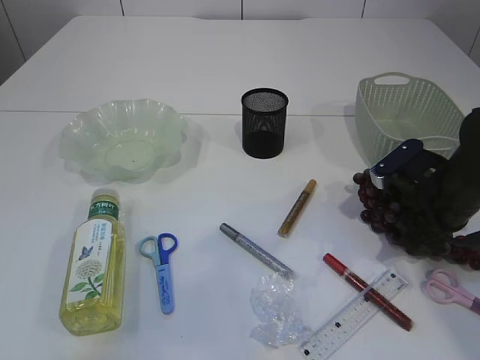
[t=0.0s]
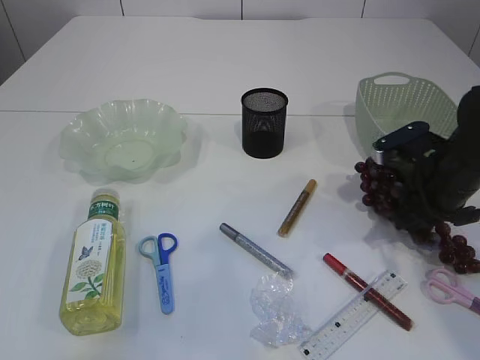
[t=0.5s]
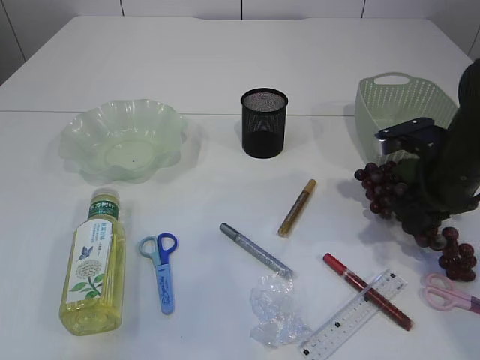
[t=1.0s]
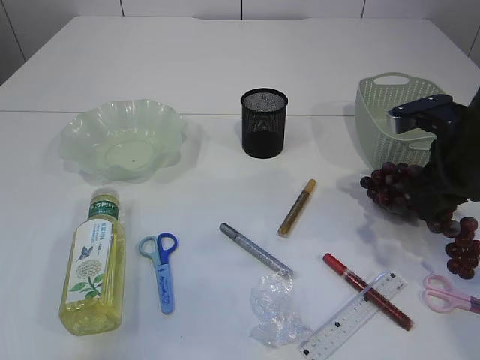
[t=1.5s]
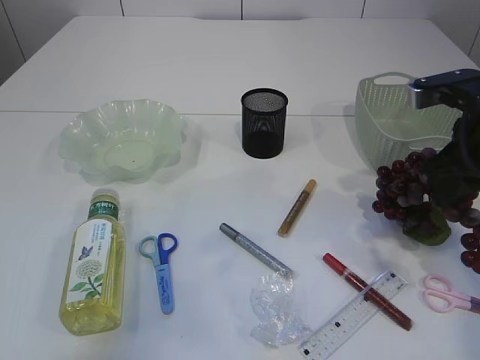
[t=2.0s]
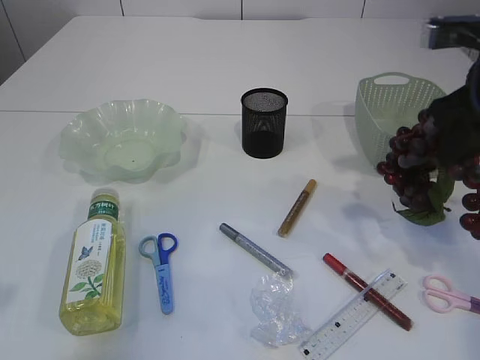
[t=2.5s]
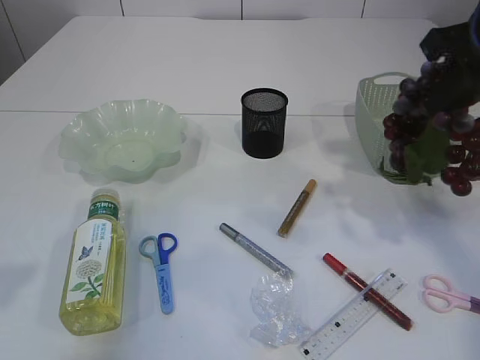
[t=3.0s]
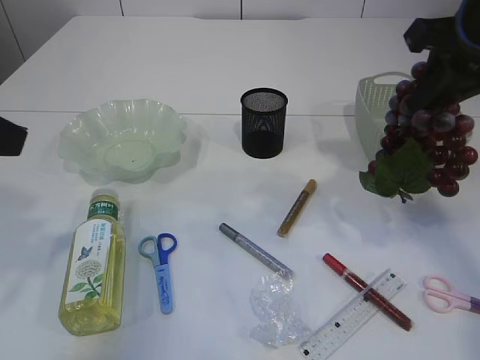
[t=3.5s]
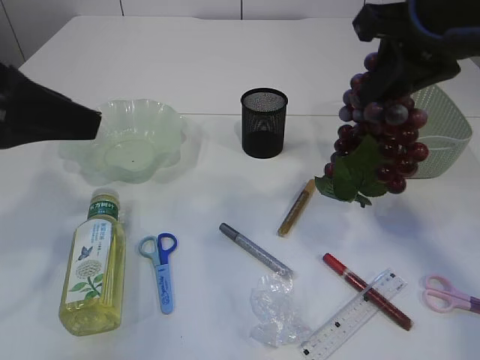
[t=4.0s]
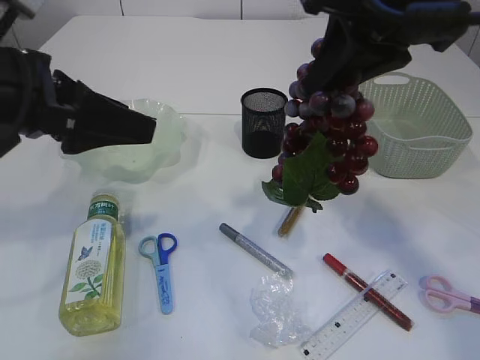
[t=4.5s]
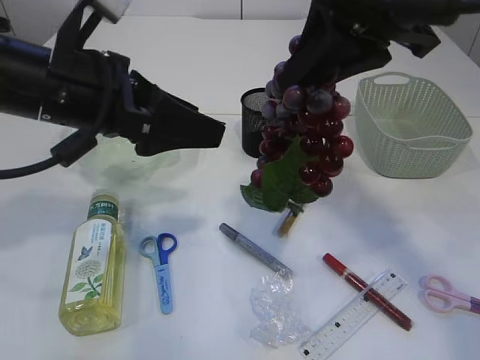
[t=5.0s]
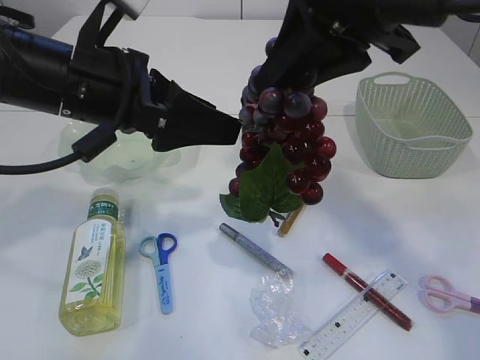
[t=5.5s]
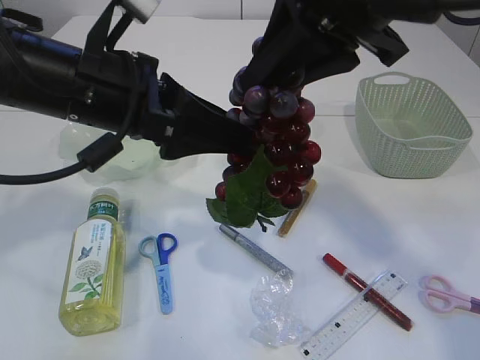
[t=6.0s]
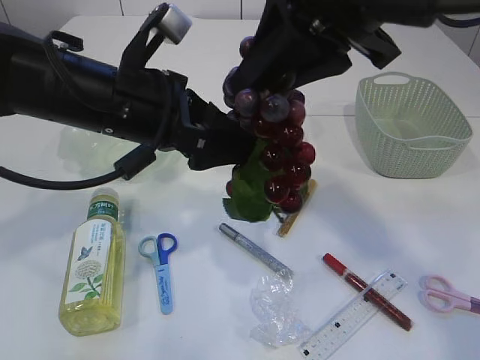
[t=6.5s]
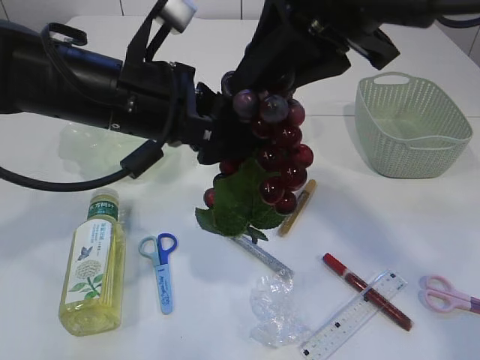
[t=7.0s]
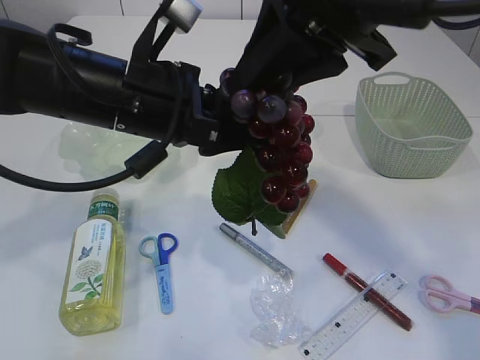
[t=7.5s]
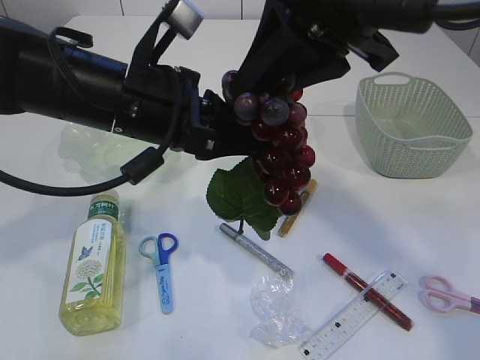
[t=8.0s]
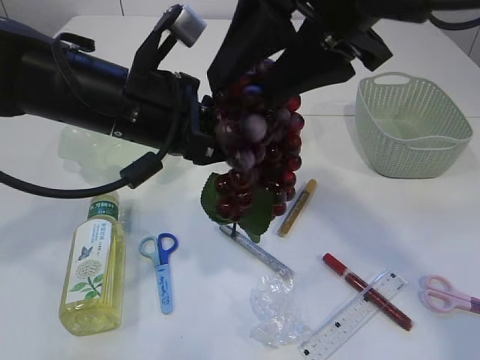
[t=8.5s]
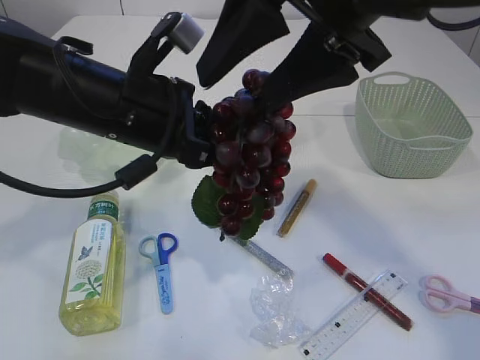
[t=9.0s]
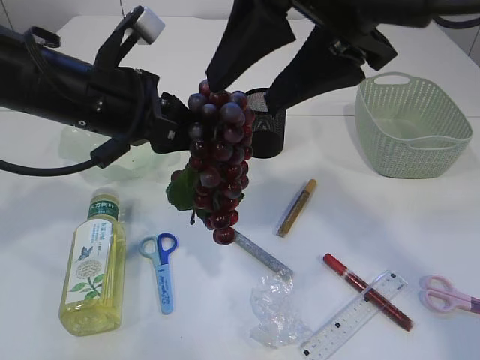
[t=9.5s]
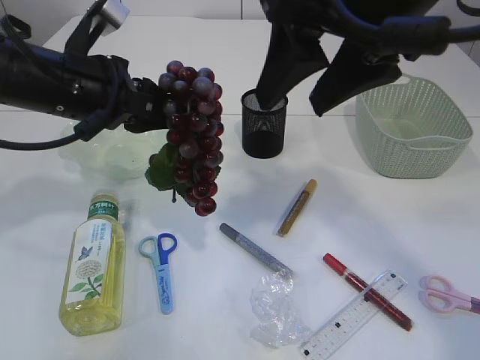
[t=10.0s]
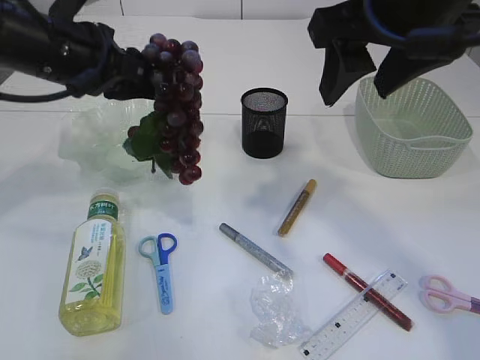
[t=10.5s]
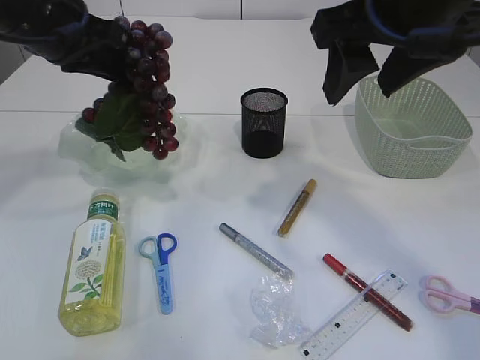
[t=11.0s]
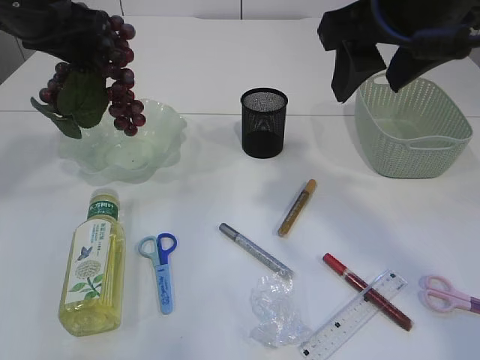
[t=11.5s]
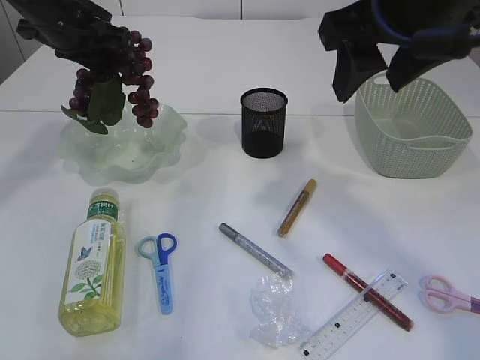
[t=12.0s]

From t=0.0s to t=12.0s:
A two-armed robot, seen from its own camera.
Step, from t=0.0s to t=2.5s: Pick up the grapes.
Step, from t=3.0s to t=9.5s: Hand over the grapes.
From t=0.0s to t=2.0s: The right gripper moves upward, roughly 10 cm, and closes up.
From t=2.0s to t=4.0s: The right gripper heads upward and to the left, covering approximately 15 cm. The left gripper travels forward and to the right by some 10 cm.
From t=4.0s to t=6.0s: The left gripper goes about 10 cm to the right and forward. Meanwhile the right gripper is displaced to the left by some 10 cm.
From t=6.0s to t=8.0s: The left gripper closes up.
From t=8.0s to t=10.0s: The right gripper opens its fingers. Meanwhile the left gripper goes roughly 5 cm to the left.
From t=10.0s to t=12.0s: The left gripper is displaced forward and to the left by approximately 15 cm.

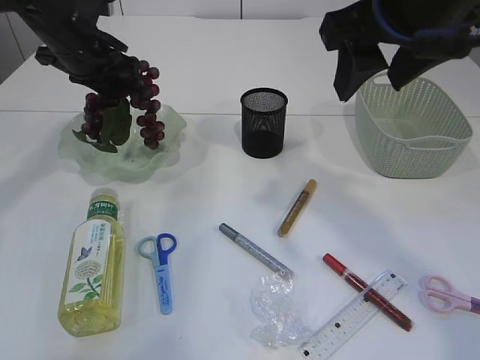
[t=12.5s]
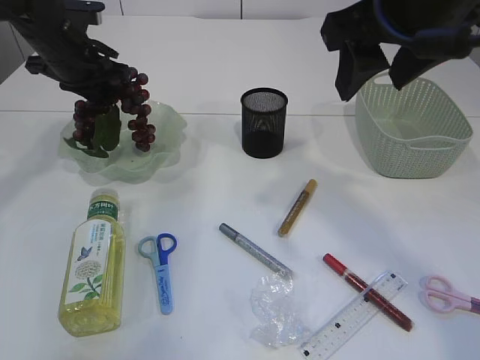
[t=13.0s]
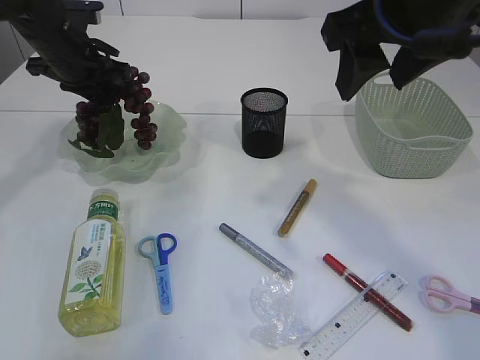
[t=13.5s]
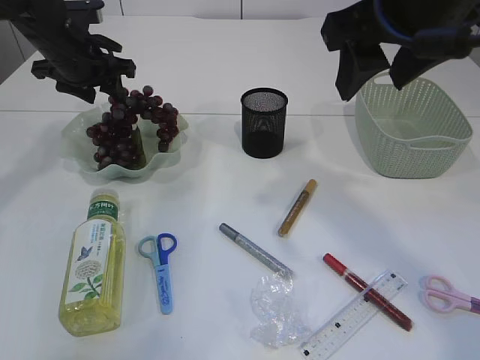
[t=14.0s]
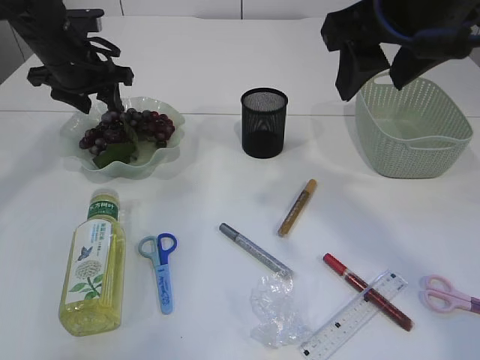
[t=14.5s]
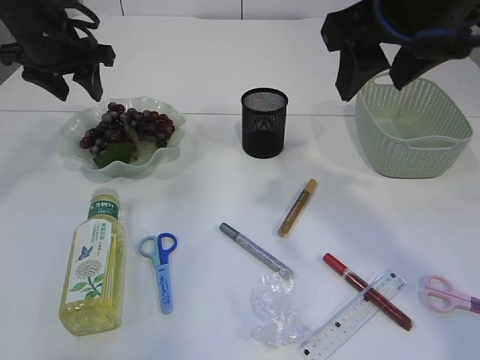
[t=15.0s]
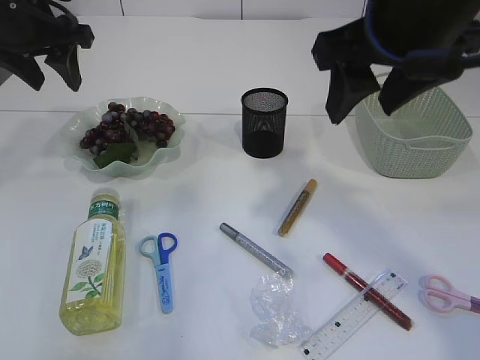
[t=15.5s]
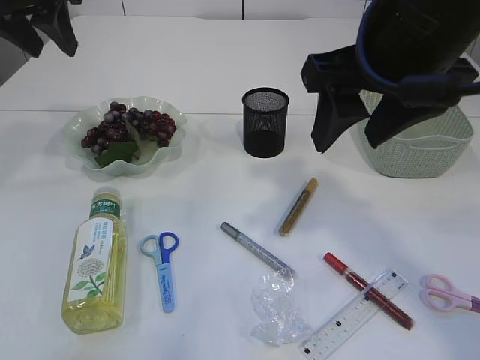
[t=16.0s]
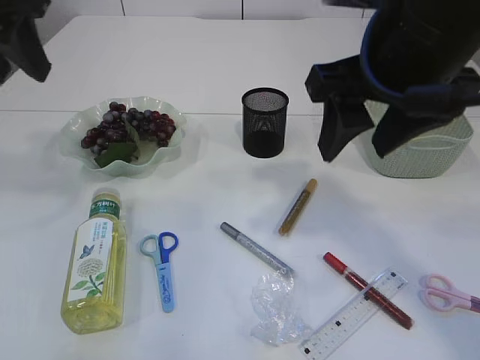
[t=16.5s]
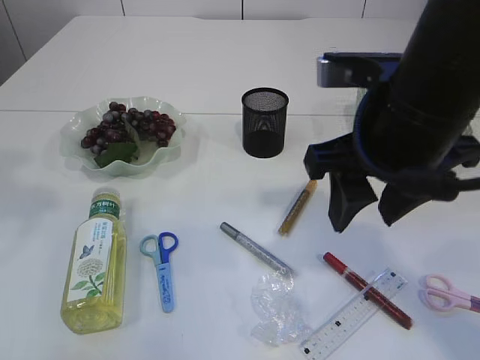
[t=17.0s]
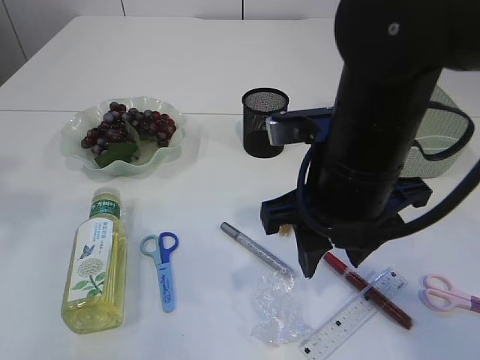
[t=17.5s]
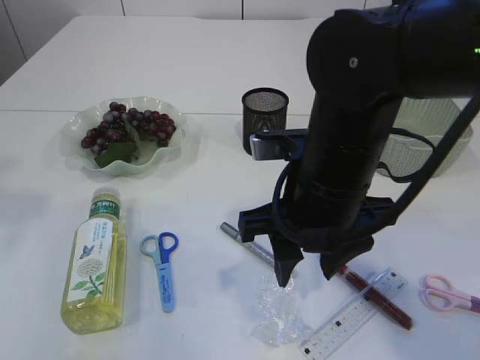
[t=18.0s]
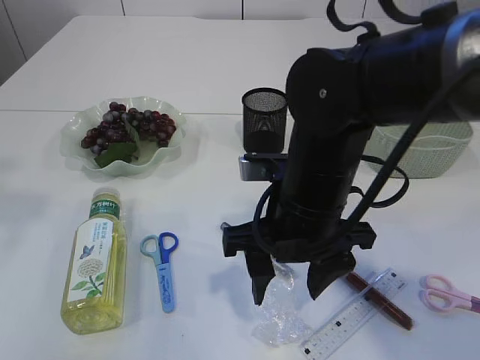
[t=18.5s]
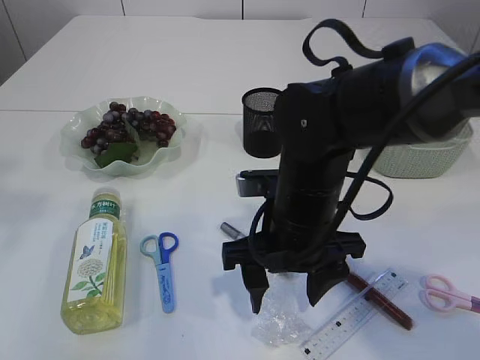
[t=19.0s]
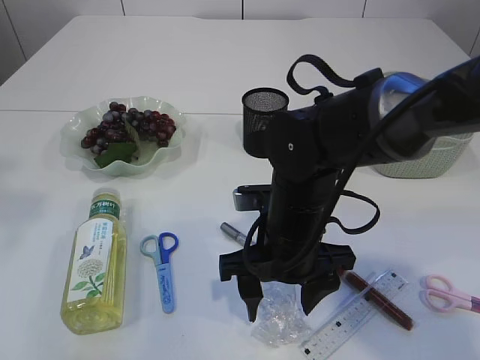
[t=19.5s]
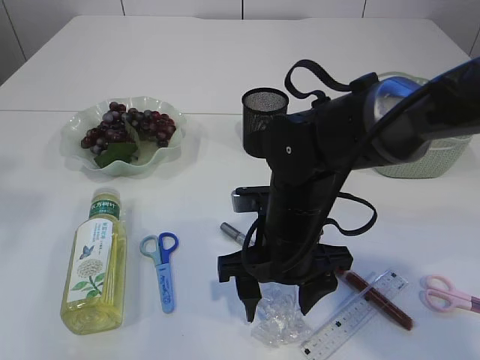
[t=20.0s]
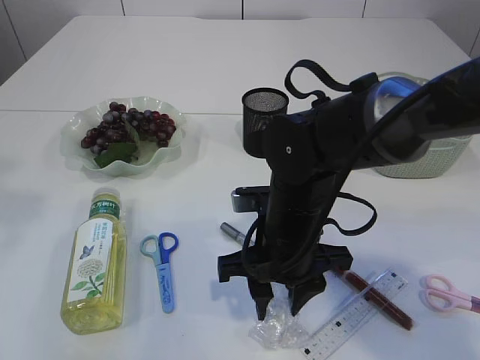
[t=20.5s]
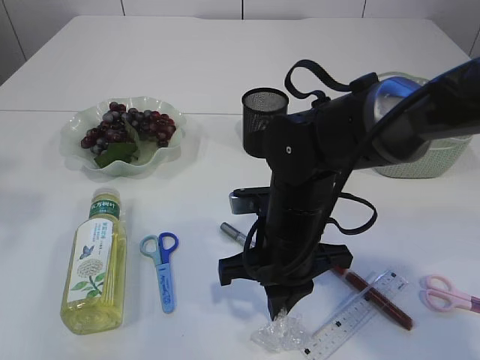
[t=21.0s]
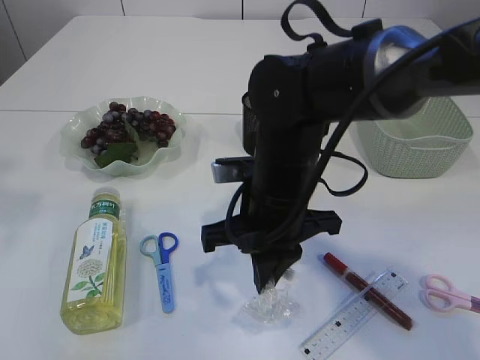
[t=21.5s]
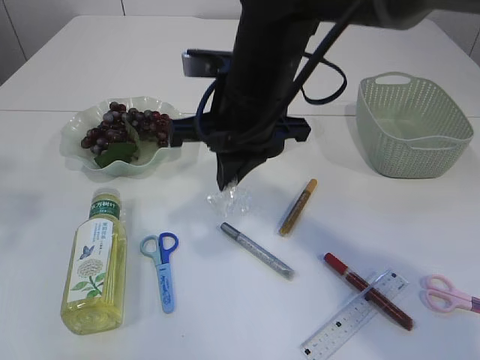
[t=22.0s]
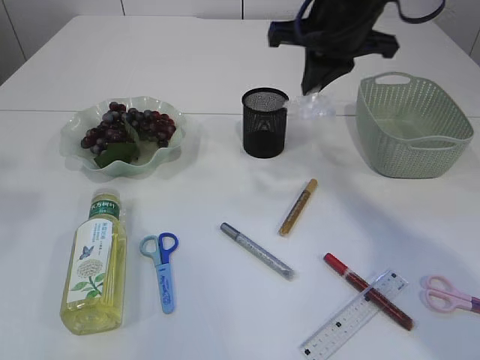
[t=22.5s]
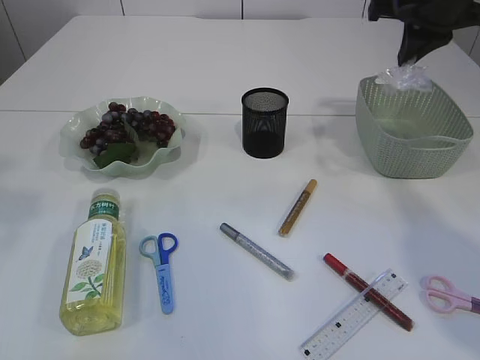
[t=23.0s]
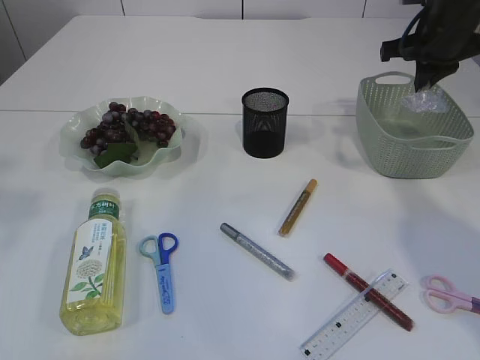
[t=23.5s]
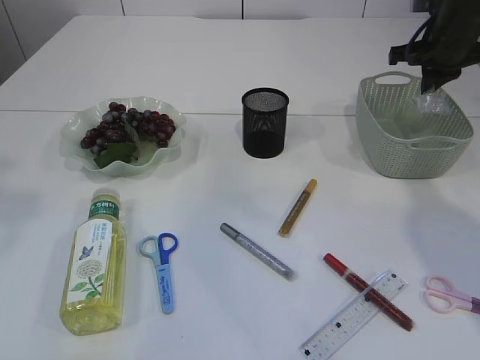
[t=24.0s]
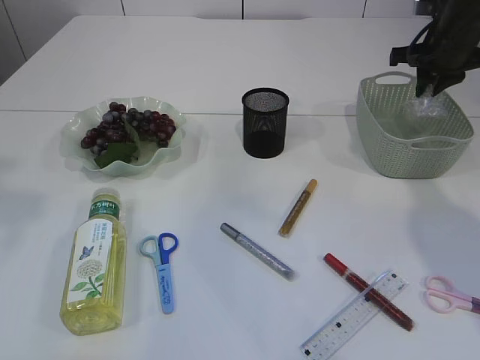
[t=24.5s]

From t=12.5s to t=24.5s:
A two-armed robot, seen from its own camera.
Step, from t=12.5s to t=14.5s: Place the grapes in the plate.
Step, from t=15.0s to t=21.5s: Pick up the plastic.
From t=12.5s to t=14.5s: The left gripper opens up.
From t=14.5s to t=16.5s: The left gripper heads backward and upward, covering some 20 cm.
From t=16.5s to t=18.5s: The right gripper travels downward and to the left by roughly 15 cm. Meanwhile the left gripper shifts approximately 15 cm backward and upward.
From t=18.5s to t=20.5s: The right gripper goes some 5 cm downward.
From t=20.5s to t=22.5s: The right gripper goes about 20 cm upward and forward, and closes up.
From t=22.5s to t=24.5s: The right gripper shifts approximately 20 cm to the right and forward.

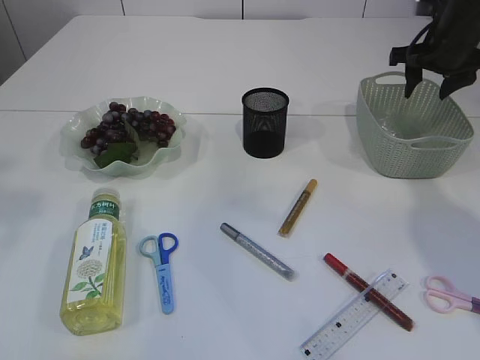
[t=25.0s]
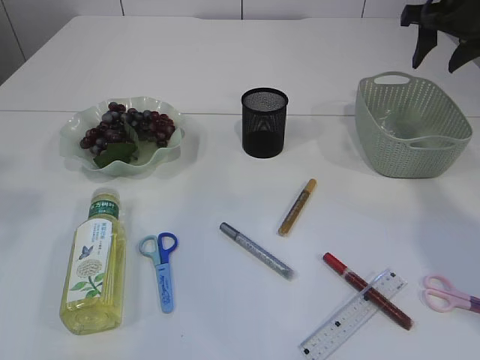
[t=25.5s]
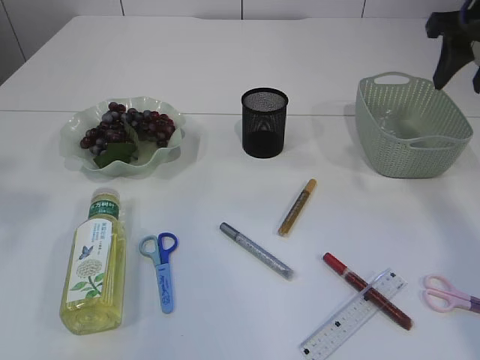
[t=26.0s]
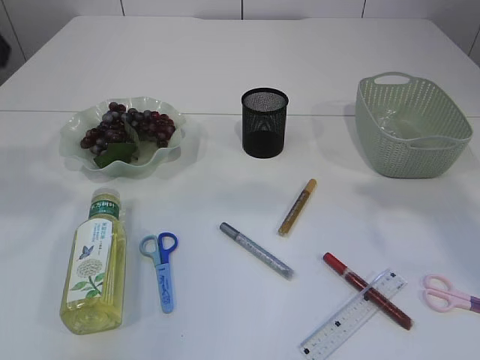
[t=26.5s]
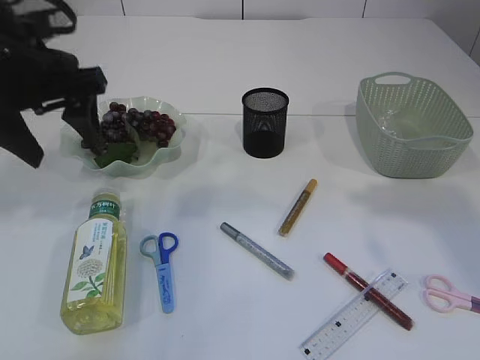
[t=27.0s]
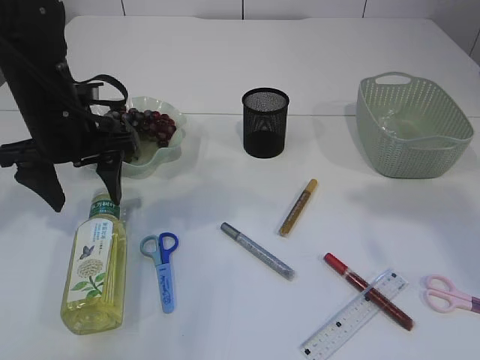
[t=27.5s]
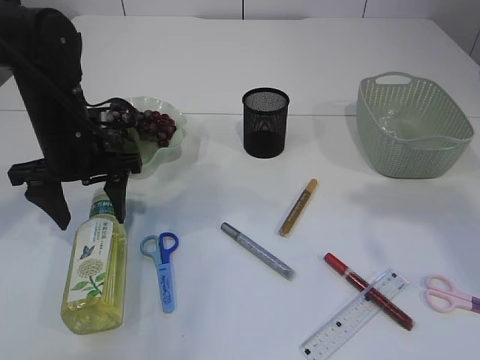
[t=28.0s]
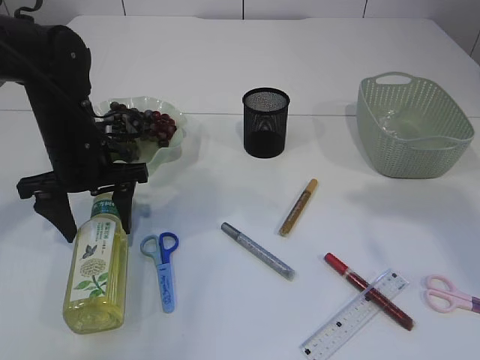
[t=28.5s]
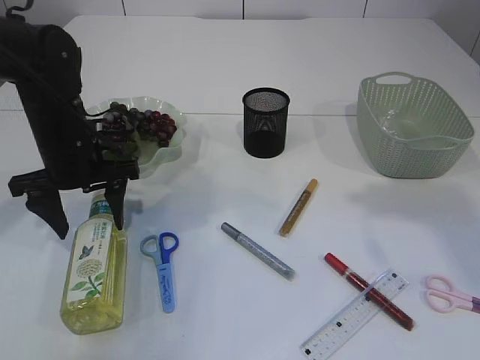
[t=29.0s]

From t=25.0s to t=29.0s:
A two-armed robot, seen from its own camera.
From t=25.0s to t=27.0s: The left gripper travels downward and forward by roughly 20 cm, and opens up; the right gripper is displaced backward and upward by approximately 30 cm.
From t=27.0s to t=29.0s: The left gripper heads downward, covering approximately 15 cm.
